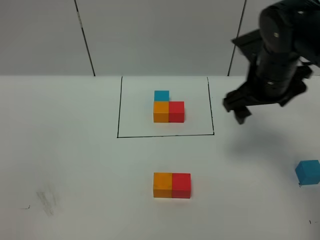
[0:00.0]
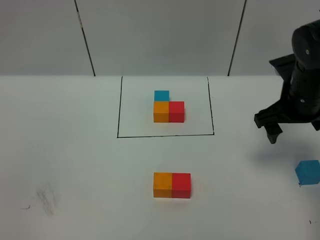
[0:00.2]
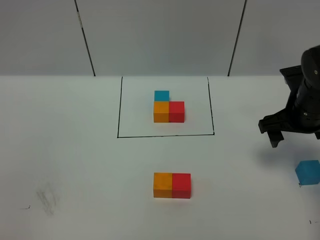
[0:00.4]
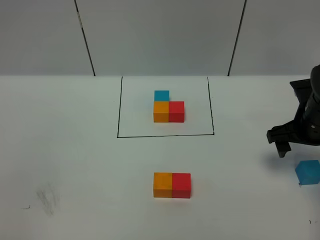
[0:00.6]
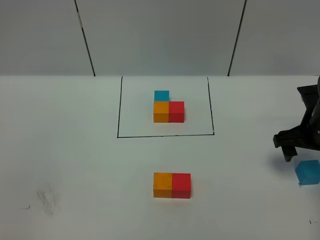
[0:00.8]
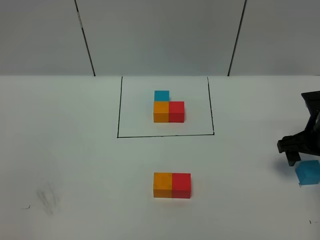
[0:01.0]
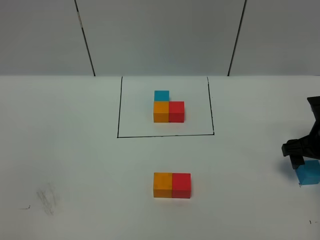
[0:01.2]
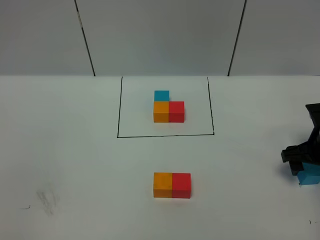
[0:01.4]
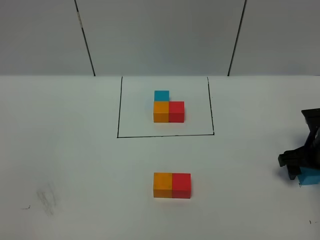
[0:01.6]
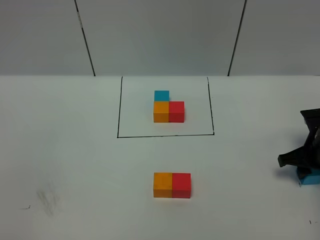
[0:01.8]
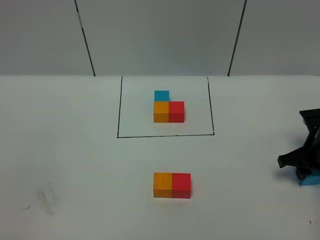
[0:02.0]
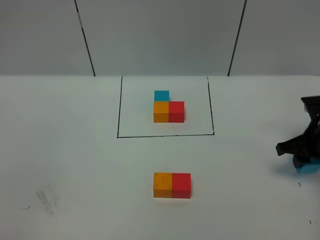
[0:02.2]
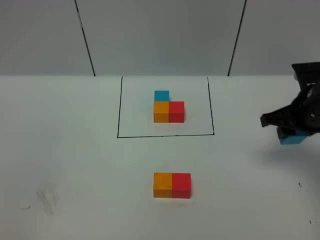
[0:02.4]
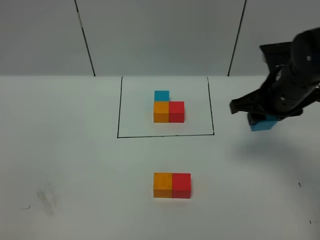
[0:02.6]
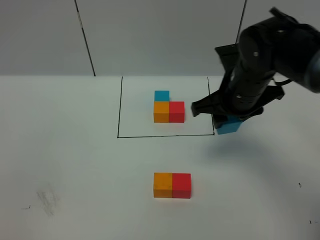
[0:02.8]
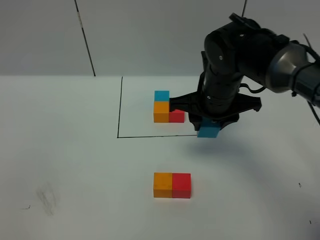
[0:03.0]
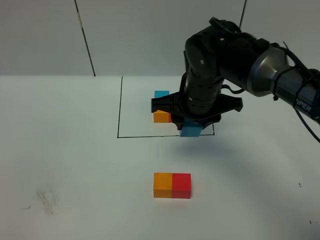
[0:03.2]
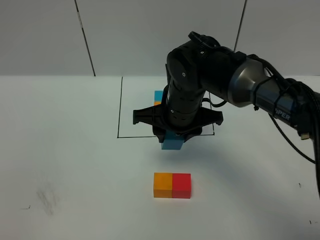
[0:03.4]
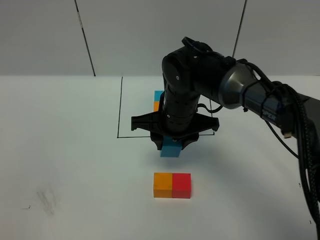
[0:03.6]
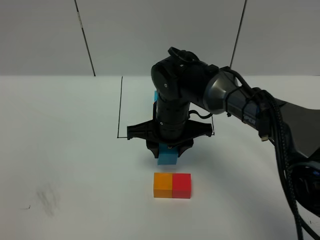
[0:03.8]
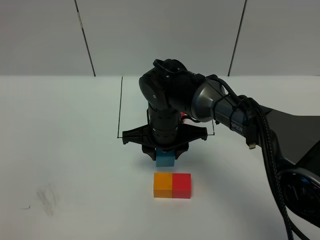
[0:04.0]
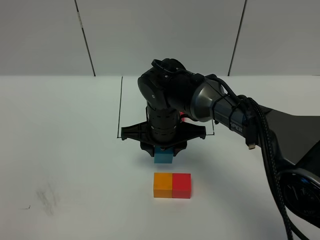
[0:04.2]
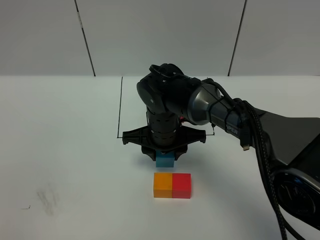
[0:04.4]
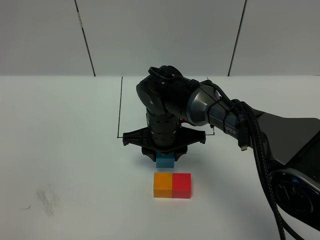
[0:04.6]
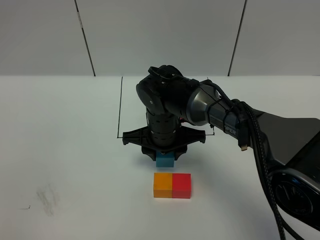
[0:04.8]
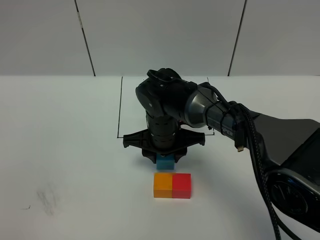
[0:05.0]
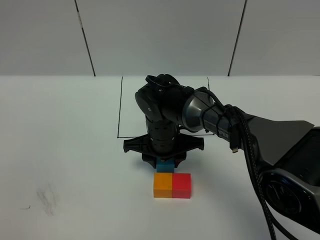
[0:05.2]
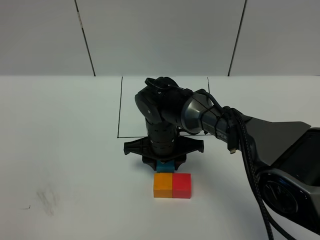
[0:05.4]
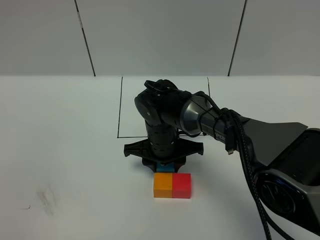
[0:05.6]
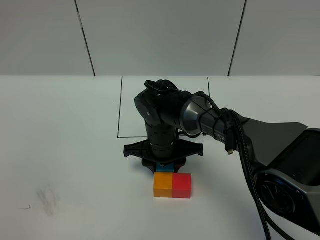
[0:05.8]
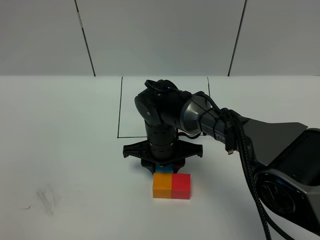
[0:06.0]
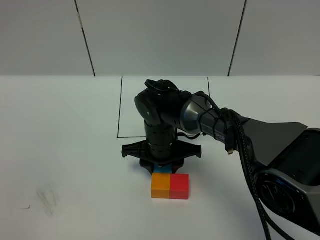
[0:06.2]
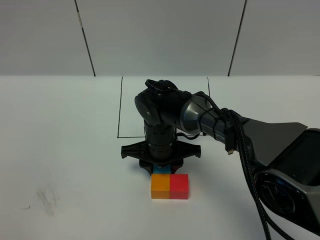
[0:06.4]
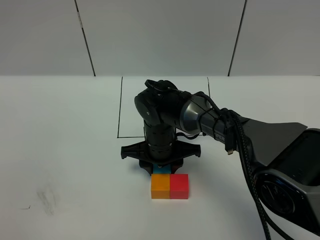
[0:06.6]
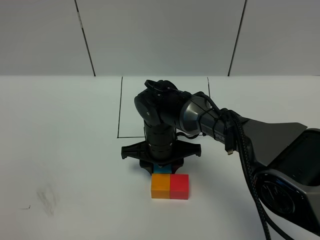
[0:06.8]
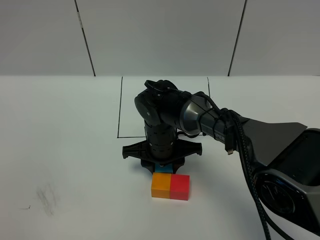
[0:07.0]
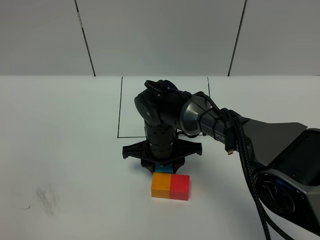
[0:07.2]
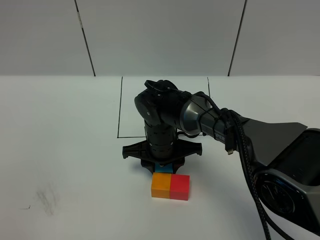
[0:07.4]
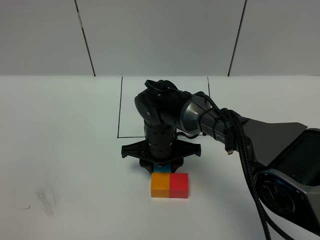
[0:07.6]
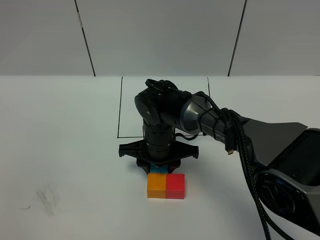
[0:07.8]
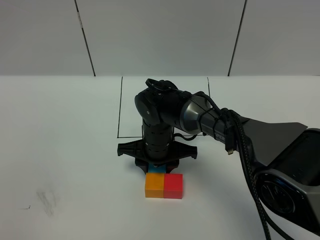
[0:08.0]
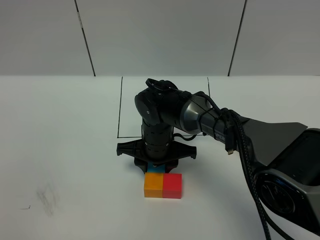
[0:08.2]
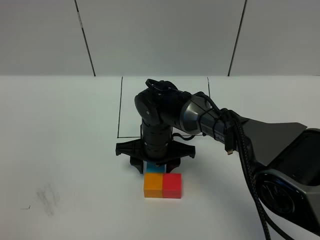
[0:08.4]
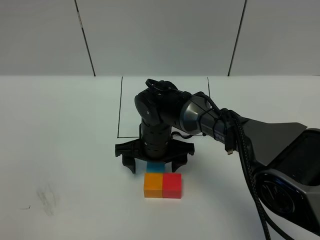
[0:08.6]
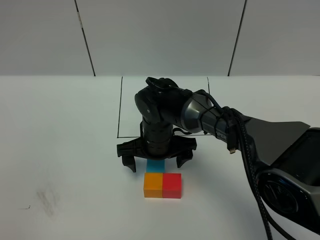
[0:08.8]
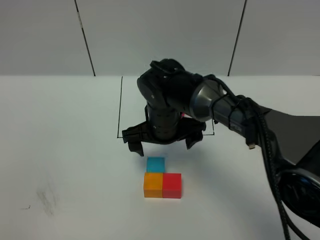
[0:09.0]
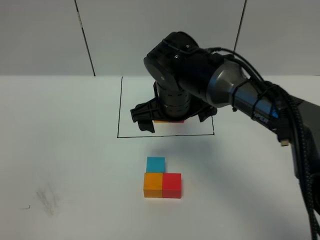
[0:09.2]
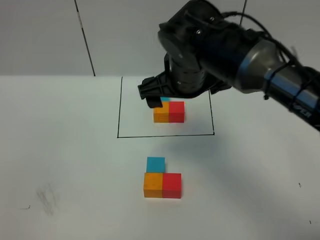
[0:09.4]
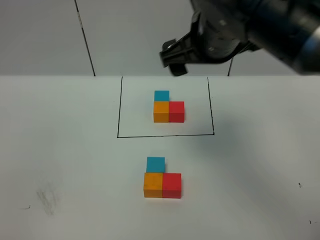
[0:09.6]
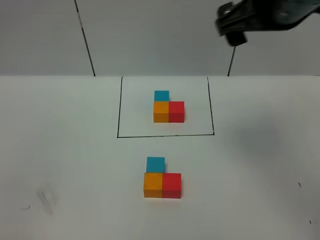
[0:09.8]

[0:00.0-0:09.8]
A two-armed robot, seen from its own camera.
Task of the whole recording: According to the building block template in front, assemble the scattered blocks together.
Step, 0:00.0 to 0:08.8: Put the blue cube on the behind of the orange cube.
0:00.0 to 0:01.4: The right gripper heads downward and to the right, covering about 20 cm.
0:01.4 to 0:02.8: The right gripper is displaced to the left and upward by roughly 25 cm, and closes up.
0:02.8 to 0:04.2: The right gripper travels to the left and downward by roughly 15 cm.
0:04.2 to 0:05.6: The right gripper travels downward by about 5 cm.
0:05.6 to 0:07.0: Both grippers stay about where they are.
0:07.0 to 0:08.4: The grippers make only small movements.
0:08.4 to 0:09.8: The right gripper is displaced upward and to the right by about 35 cm, and opens up.

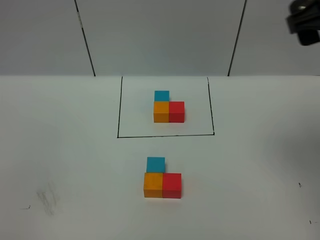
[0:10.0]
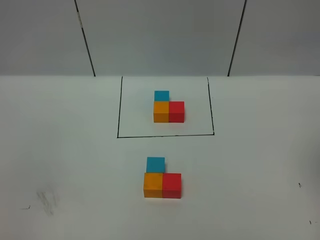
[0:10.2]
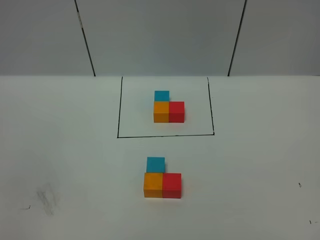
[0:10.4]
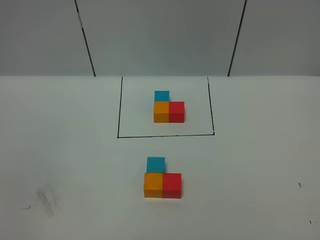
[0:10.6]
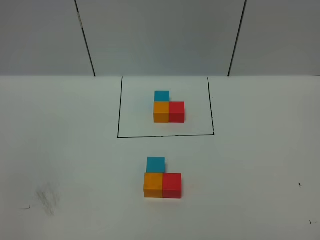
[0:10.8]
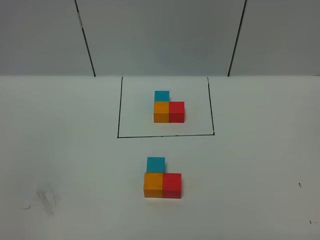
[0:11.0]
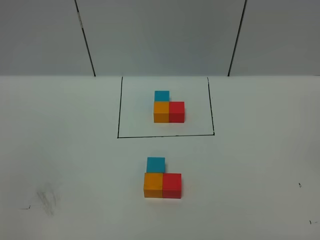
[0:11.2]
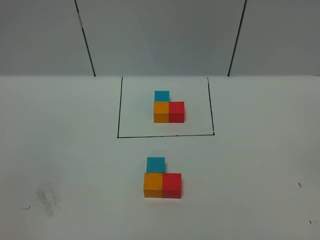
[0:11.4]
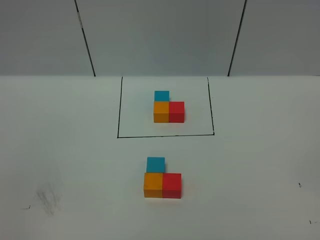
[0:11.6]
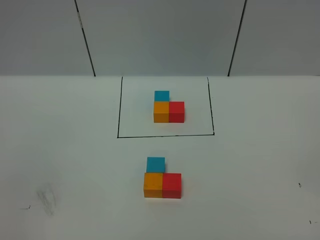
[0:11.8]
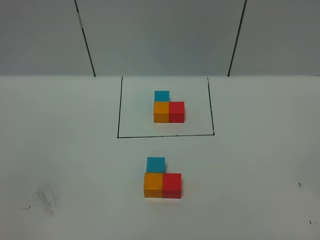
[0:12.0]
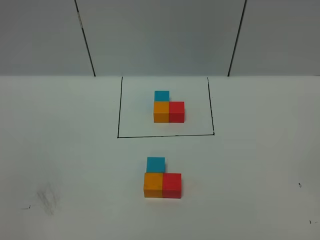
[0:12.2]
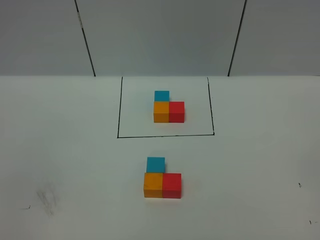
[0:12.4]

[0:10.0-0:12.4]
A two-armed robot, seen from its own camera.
Task of the whole recording: According to the building block template in front, assemble the scattered blocks together.
0:10.0 to 0:11.2: The right gripper shifts roughly 30 cm backward and downward.
